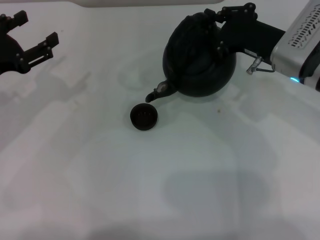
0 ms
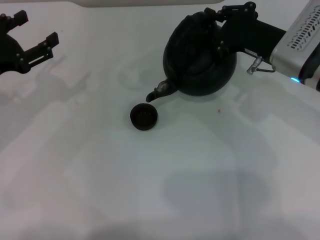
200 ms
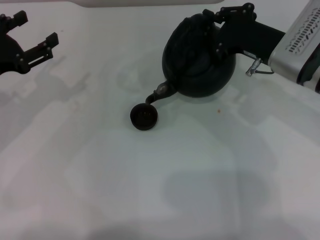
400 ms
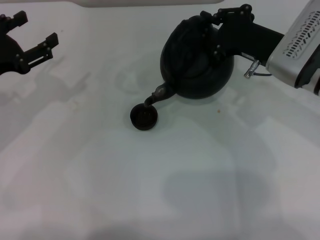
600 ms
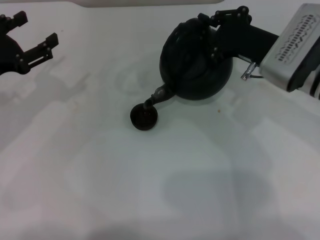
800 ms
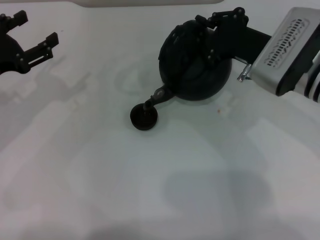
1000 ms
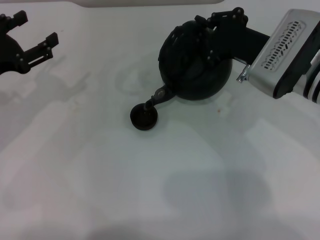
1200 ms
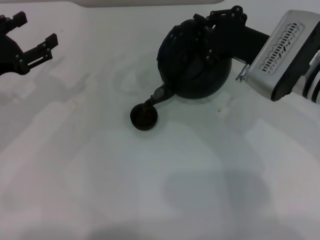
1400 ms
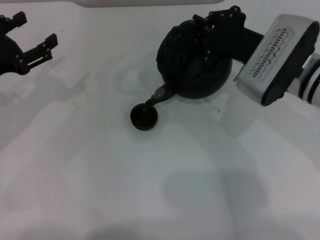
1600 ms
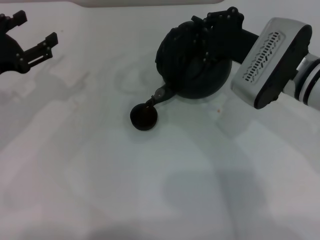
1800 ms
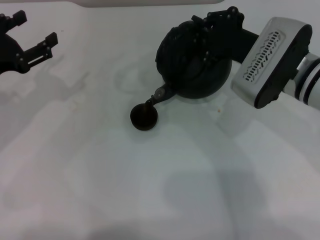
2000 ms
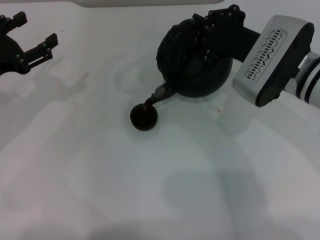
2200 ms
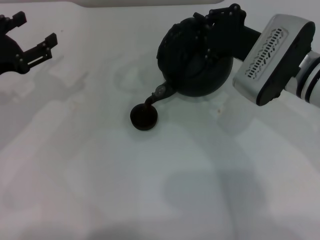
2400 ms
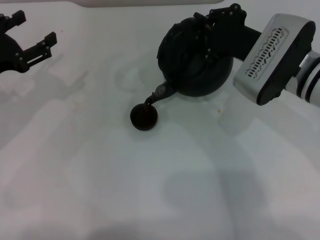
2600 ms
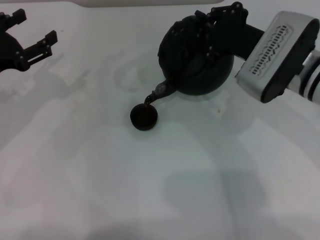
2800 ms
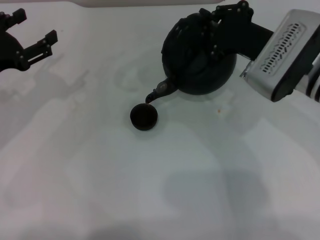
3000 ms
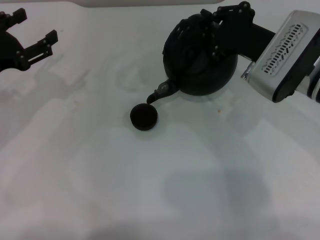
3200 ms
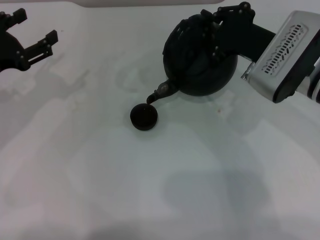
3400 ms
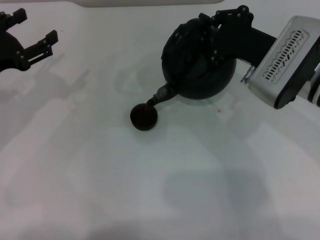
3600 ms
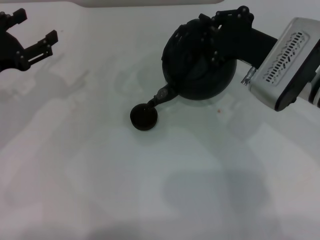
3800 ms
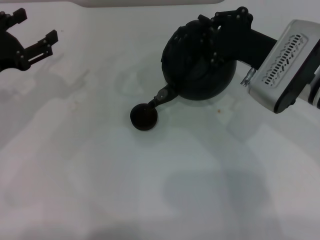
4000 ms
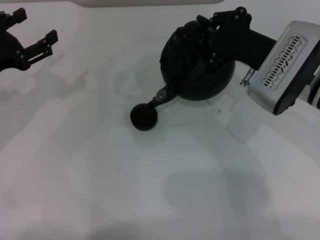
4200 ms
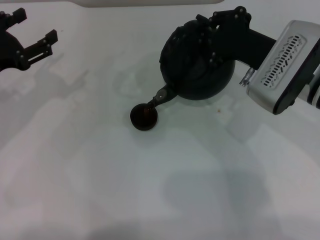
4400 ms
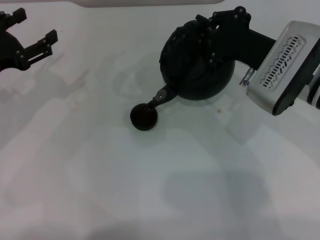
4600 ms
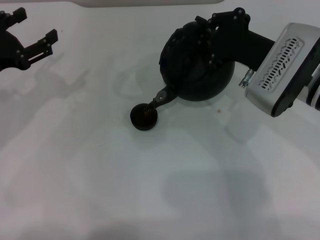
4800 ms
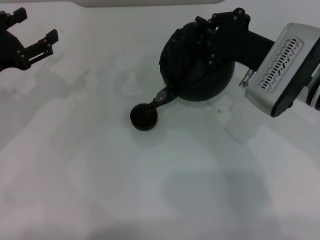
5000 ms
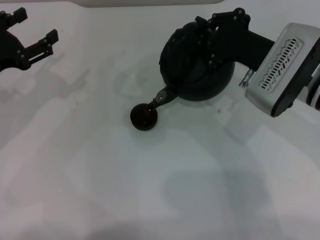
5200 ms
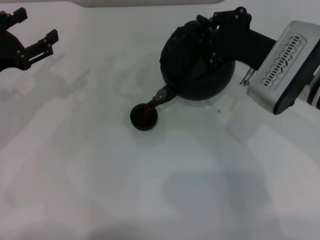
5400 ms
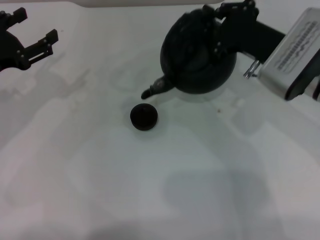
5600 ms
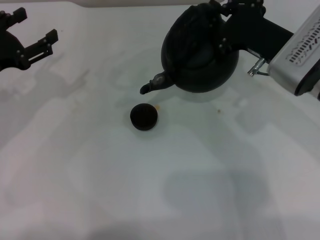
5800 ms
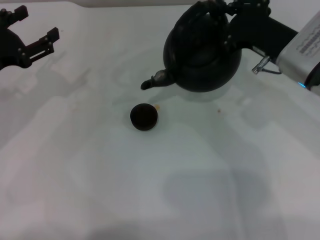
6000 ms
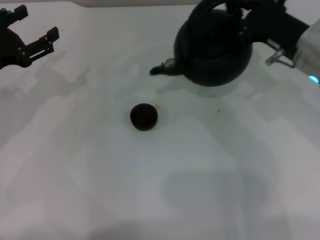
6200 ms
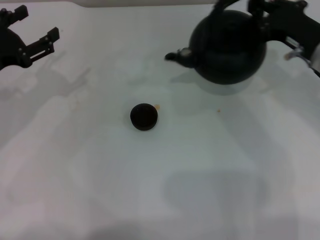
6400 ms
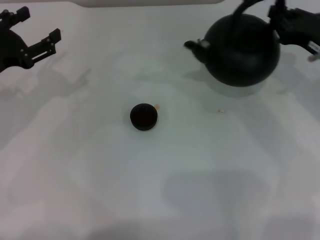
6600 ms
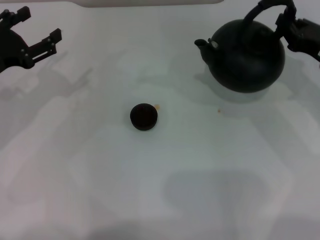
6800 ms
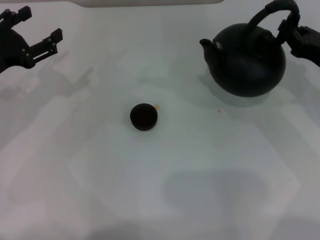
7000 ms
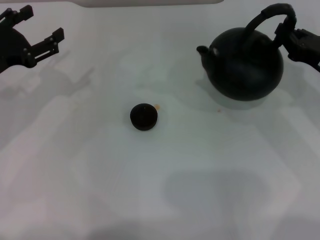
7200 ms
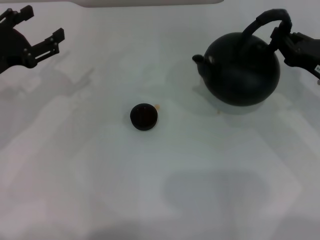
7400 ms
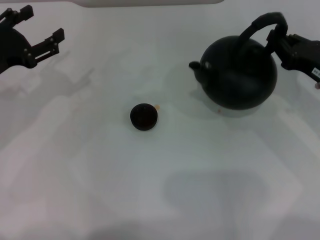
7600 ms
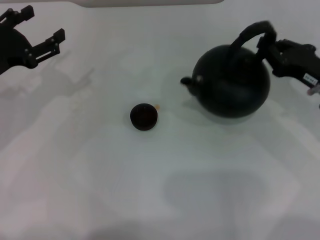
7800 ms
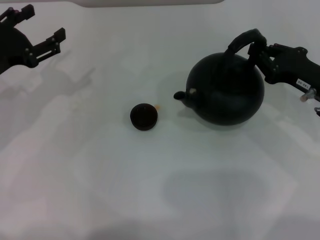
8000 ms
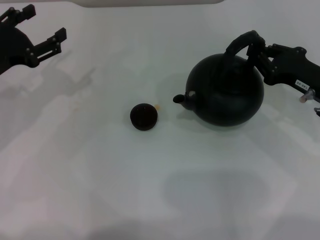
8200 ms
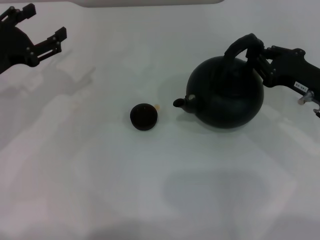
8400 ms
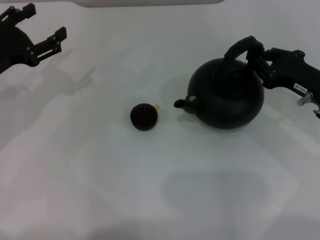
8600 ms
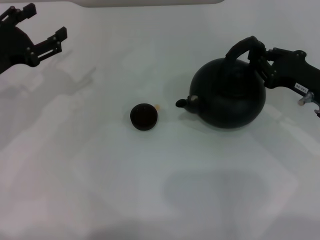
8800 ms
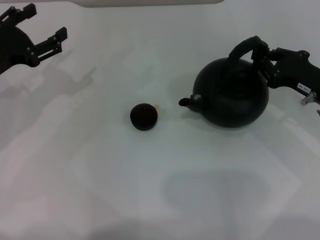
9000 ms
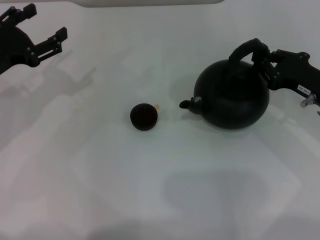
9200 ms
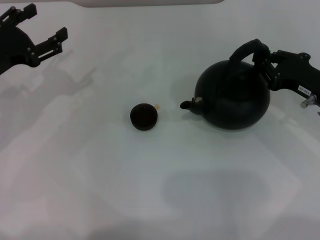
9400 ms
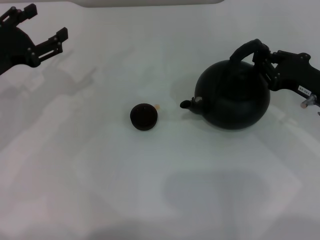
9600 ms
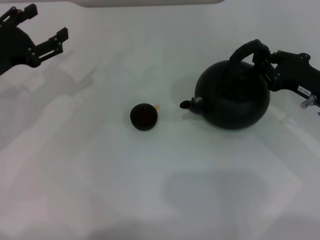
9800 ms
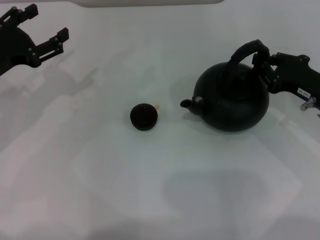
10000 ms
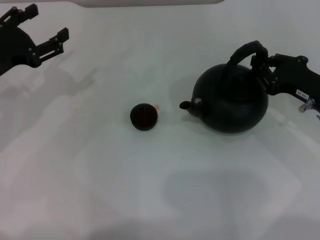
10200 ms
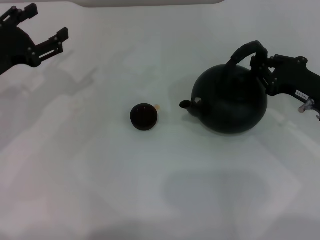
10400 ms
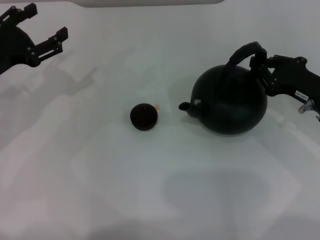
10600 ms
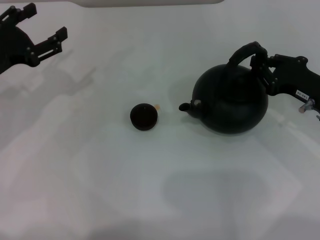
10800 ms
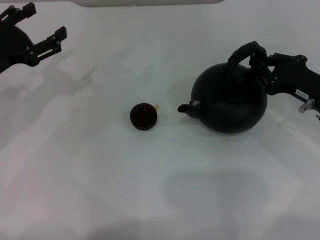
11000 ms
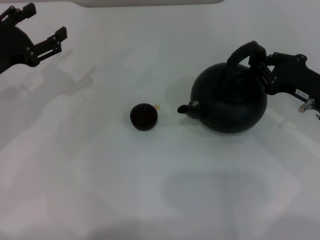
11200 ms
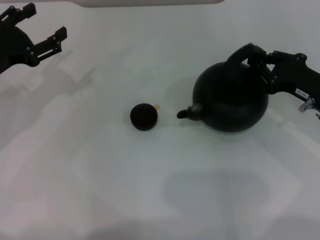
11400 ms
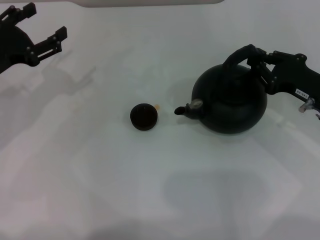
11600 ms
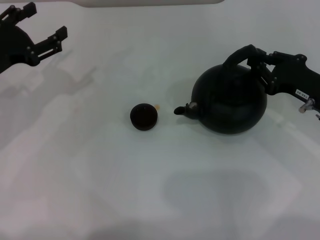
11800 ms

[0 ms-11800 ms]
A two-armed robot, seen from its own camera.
Task of the whole recording: Grasp the handle of the teapot with one hand and pour tea into the teacup.
Step, 0 ms to 5800 ms: Pour tea into the teacup with the right gripper.
0 ms to 3000 ms: The grippers stay close to where they were, moving slightly.
3000 ms to 4400 ms: Both grippers stay about where they are.
4400 ms to 6000 ms: There are only small adjustments of the grippers.
6000 ms to 7400 ms: The right gripper travels to the right and downward by roughly 10 cm.
7400 ms to 8800 ms: There are only small adjustments of the grippers.
8800 ms to 11800 ms: The two grippers keep their place.

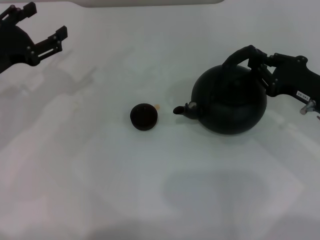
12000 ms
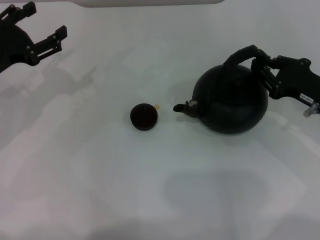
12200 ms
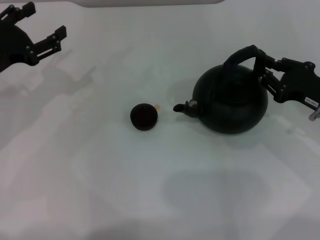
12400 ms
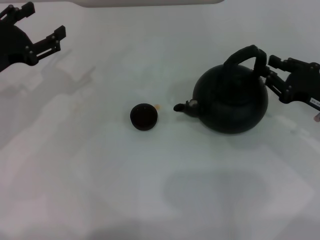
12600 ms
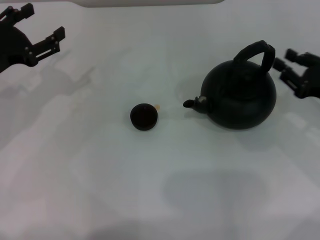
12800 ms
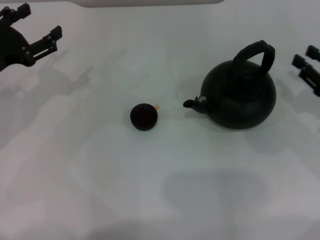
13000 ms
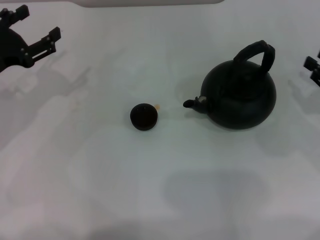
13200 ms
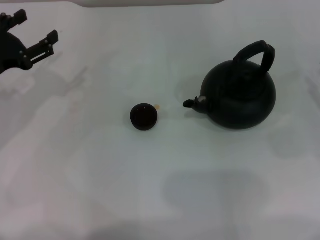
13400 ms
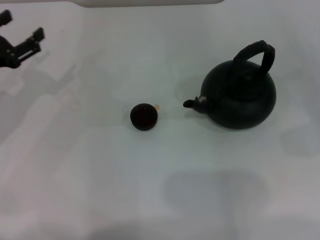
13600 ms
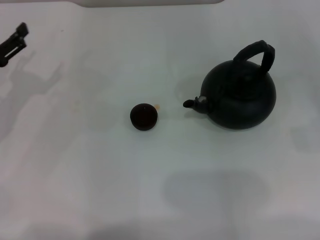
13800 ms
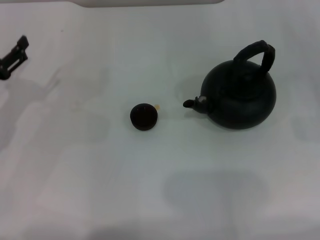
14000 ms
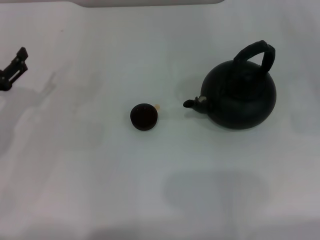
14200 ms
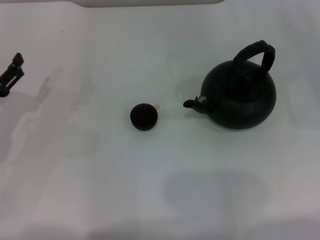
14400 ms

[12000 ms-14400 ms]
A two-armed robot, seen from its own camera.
Task of the whole recording: Grasp the handle of the teapot with one hand and pour tea into the teacup.
12000 ms to 13200 ms: The right gripper travels to the right by approximately 5 cm, and opens its fingers.
13200 ms to 14400 ms: The left gripper heads downward, covering some 5 cm.
